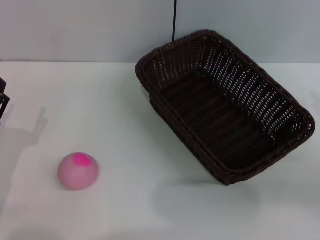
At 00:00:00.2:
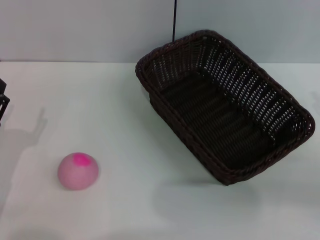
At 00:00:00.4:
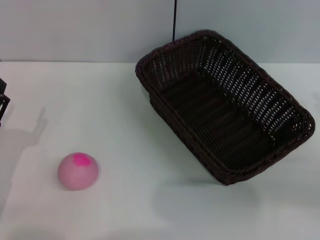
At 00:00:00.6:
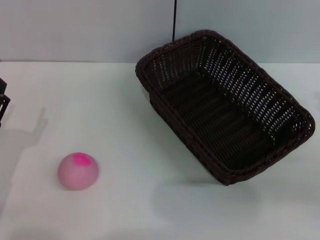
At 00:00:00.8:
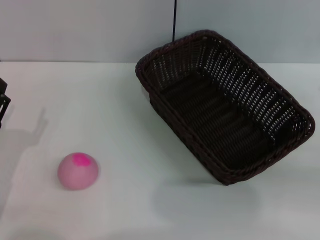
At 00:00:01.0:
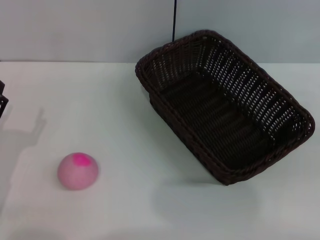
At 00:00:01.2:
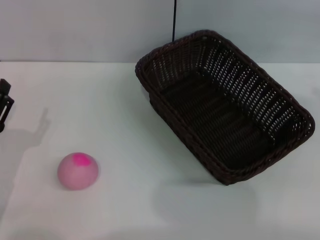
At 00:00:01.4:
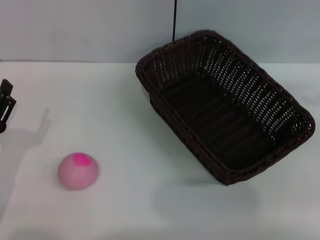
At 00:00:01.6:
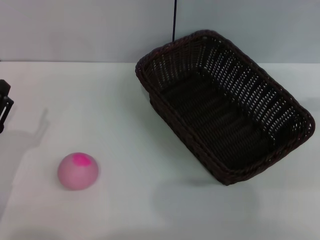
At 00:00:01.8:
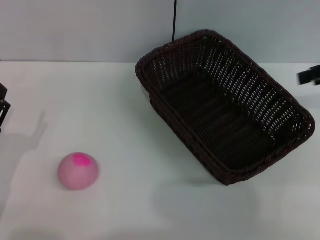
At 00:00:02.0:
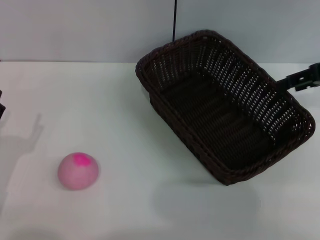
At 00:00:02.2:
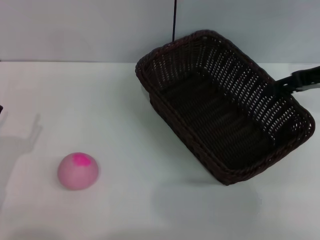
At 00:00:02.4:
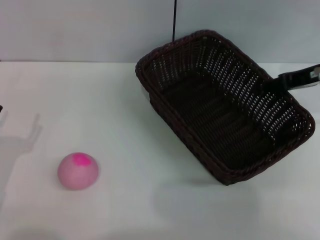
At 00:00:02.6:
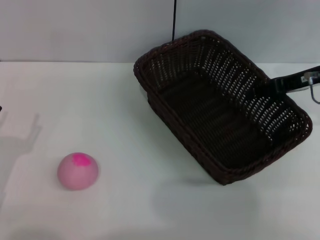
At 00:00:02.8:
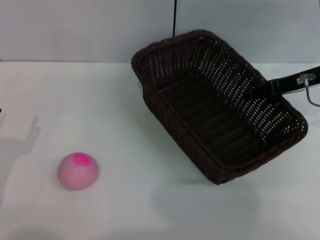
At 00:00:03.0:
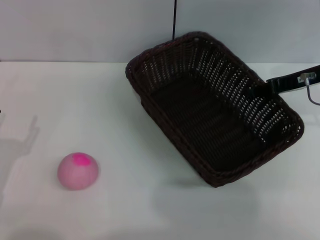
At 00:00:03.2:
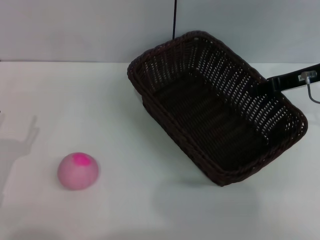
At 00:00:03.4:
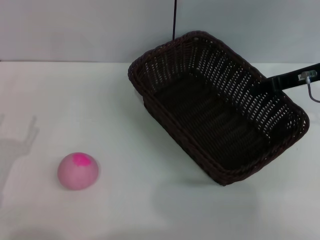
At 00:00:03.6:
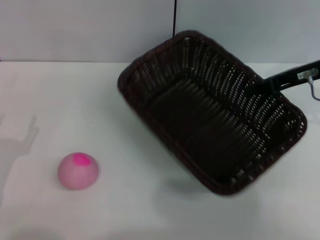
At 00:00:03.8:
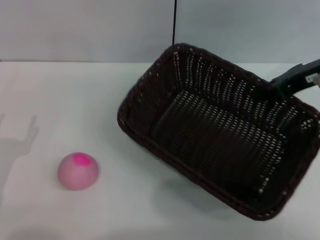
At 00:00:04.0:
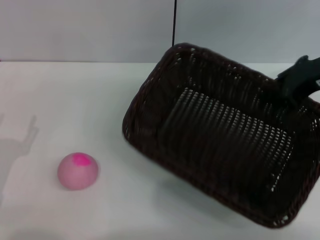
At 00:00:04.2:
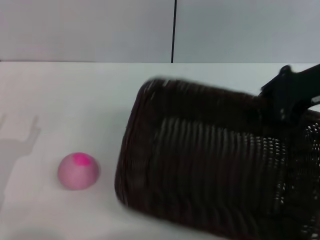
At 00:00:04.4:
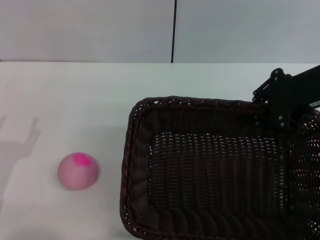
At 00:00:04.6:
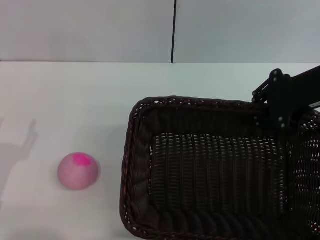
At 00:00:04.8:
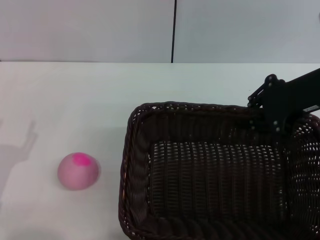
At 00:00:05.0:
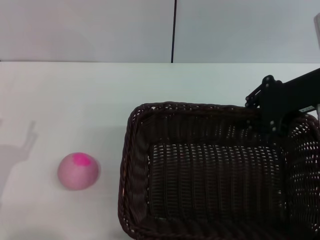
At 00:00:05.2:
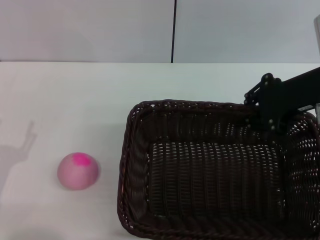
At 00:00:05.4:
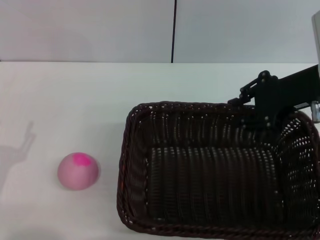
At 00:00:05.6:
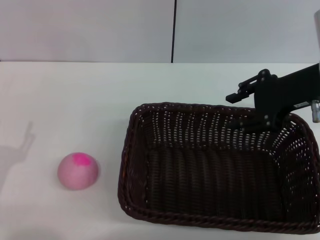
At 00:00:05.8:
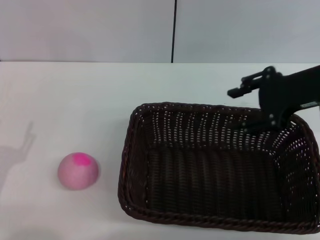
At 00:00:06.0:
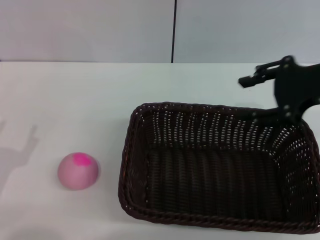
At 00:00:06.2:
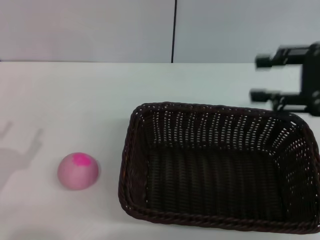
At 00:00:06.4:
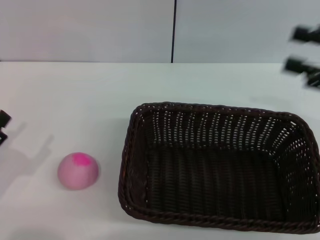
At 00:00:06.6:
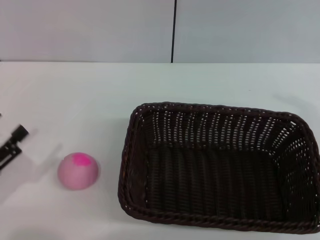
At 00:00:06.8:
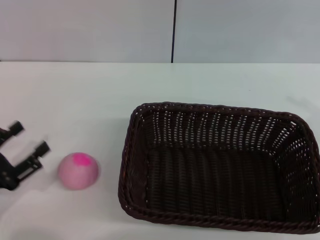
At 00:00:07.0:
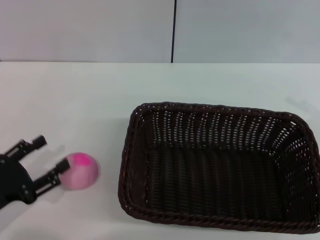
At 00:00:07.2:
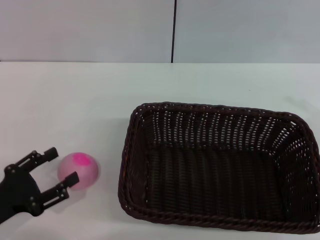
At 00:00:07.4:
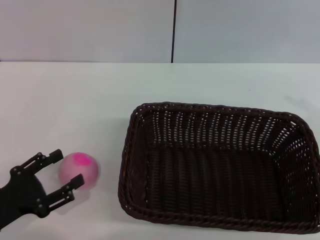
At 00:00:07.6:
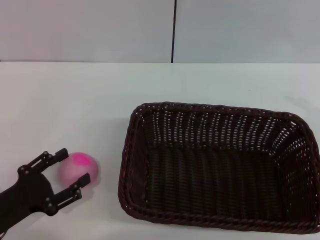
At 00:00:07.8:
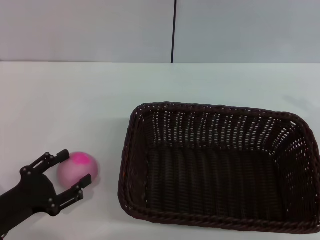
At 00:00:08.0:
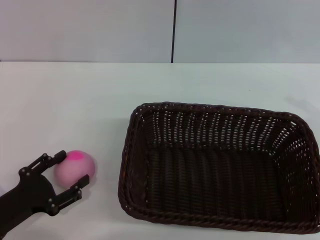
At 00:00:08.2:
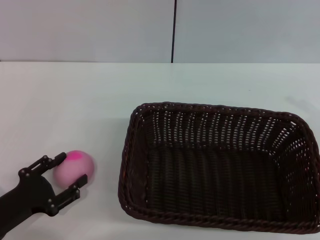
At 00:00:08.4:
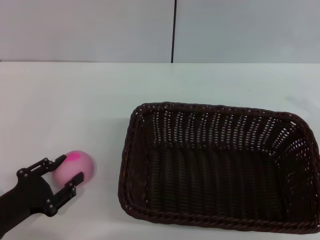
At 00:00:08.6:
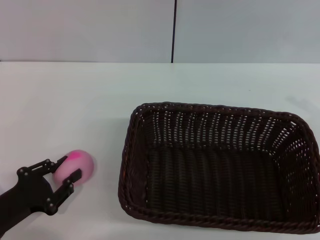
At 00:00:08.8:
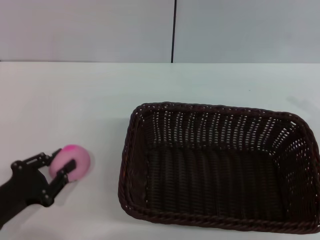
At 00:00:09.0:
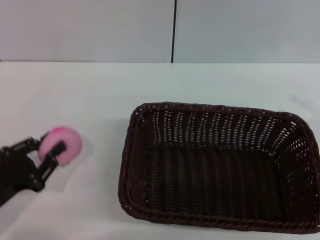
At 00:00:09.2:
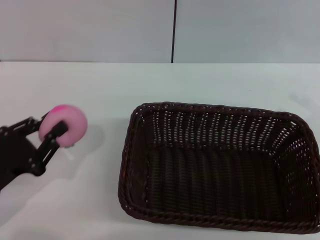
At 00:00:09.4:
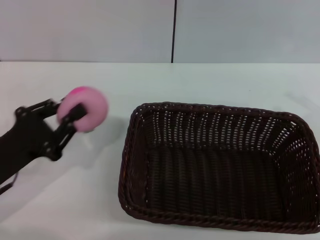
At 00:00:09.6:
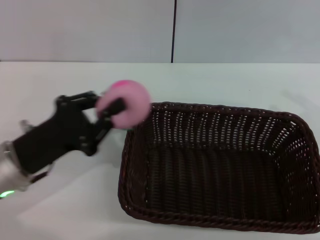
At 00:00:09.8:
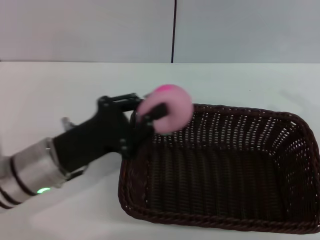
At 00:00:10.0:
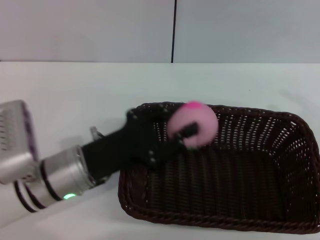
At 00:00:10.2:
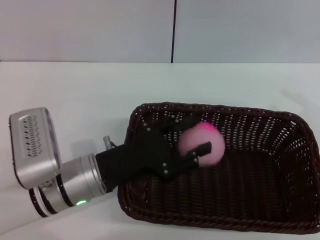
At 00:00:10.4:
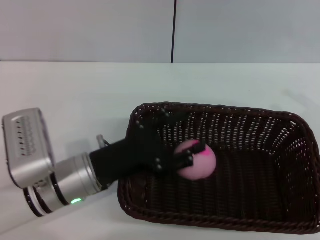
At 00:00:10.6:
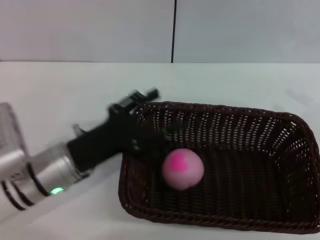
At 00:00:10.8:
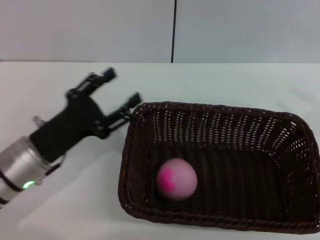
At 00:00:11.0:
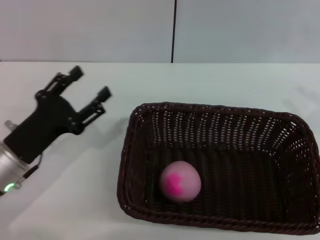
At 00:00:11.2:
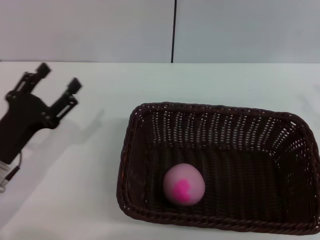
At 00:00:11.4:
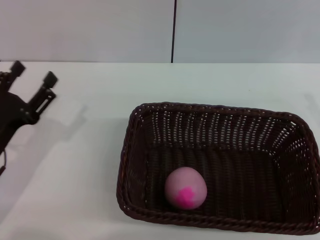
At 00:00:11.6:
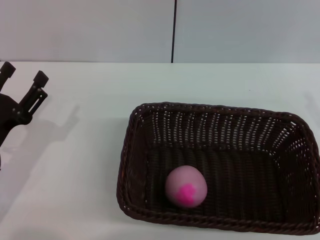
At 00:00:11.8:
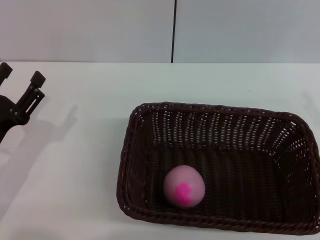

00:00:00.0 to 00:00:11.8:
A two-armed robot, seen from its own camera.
Step, 00:00:00.0 to 00:00:04.0: Pick up the dark basket with the right gripper.
Step, 00:00:04.2 to 00:00:05.8: Place the dark basket in the center of view with the right gripper.
Step, 00:00:06.2 to 00:00:09.2: Pick up the peach with the left gripper.
Step, 00:00:09.4 to 00:00:10.4: Place the peach into the basket with the left gripper.
00:00:00.0 to 00:00:01.4: The right gripper moves upward and forward, approximately 20 cm.
00:00:01.4 to 00:00:03.0: The right gripper heads to the left, downward and forward, covering approximately 20 cm.
00:00:03.0 to 00:00:04.4: The right gripper shifts approximately 10 cm upward and backward, and closes up.
00:00:04.4 to 00:00:06.0: The right gripper opens up.
00:00:06.0 to 00:00:07.4: The right gripper moves downward, to the right and backward, roughly 15 cm.
00:00:07.4 to 00:00:08.8: The left gripper closes up.
00:00:08.8 to 00:00:10.4: The left gripper travels to the right and forward by about 15 cm.
00:00:10.4 to 00:00:11.8: The left gripper travels to the left by about 15 cm, and opens.

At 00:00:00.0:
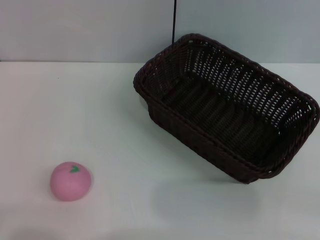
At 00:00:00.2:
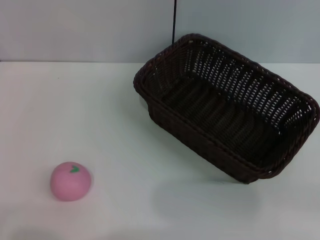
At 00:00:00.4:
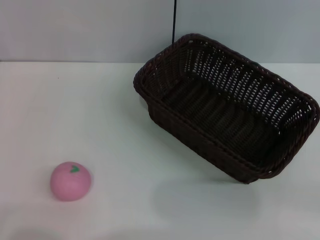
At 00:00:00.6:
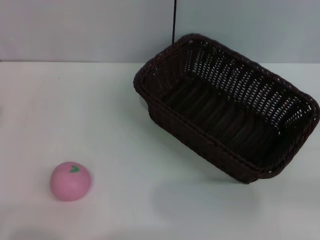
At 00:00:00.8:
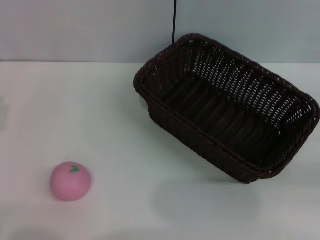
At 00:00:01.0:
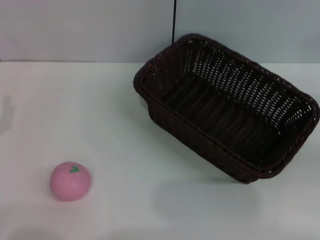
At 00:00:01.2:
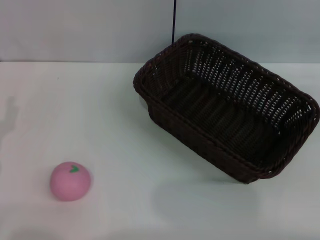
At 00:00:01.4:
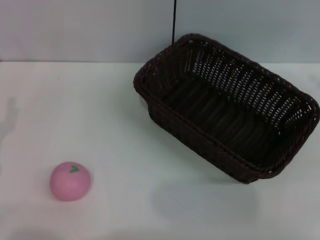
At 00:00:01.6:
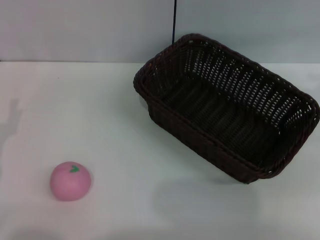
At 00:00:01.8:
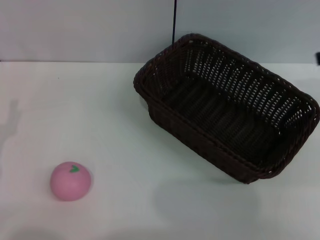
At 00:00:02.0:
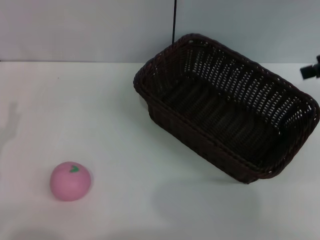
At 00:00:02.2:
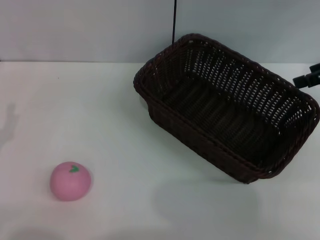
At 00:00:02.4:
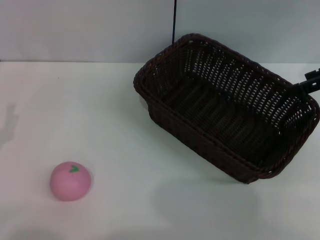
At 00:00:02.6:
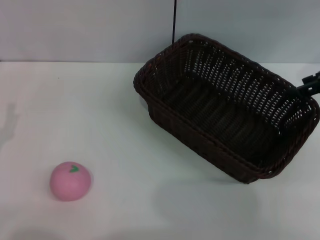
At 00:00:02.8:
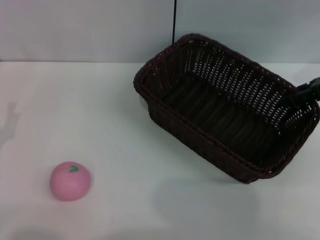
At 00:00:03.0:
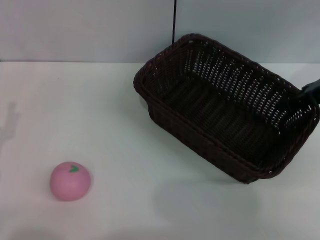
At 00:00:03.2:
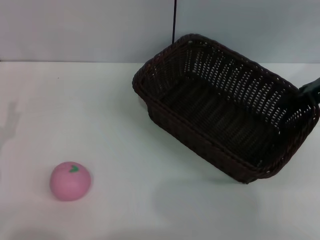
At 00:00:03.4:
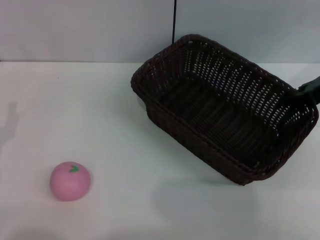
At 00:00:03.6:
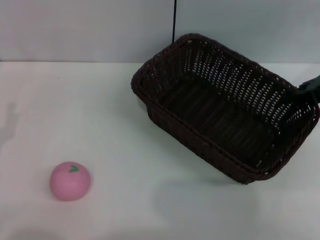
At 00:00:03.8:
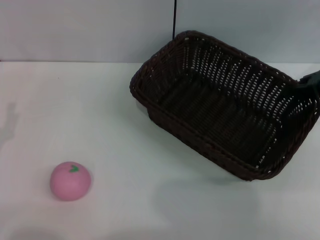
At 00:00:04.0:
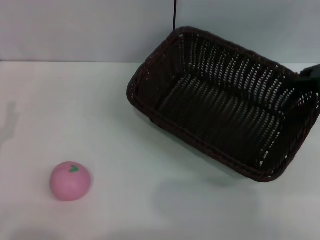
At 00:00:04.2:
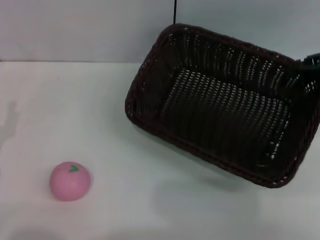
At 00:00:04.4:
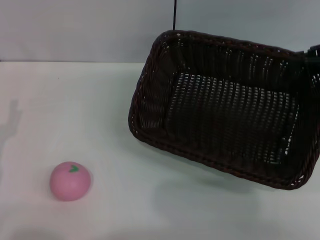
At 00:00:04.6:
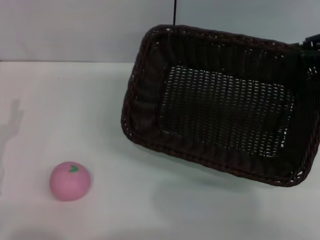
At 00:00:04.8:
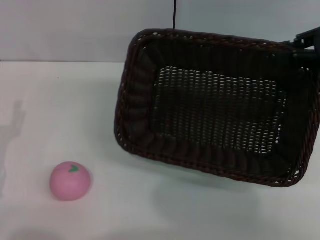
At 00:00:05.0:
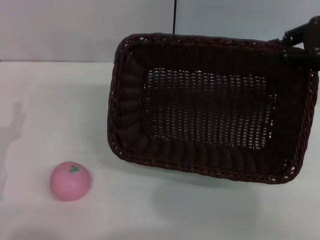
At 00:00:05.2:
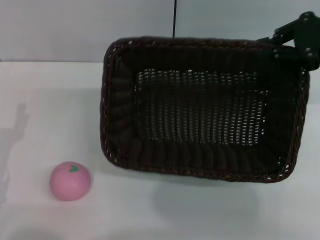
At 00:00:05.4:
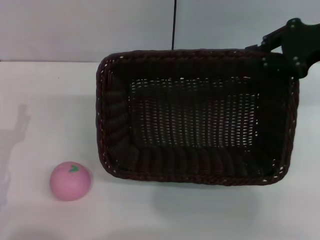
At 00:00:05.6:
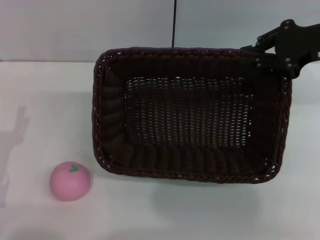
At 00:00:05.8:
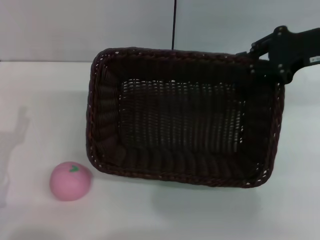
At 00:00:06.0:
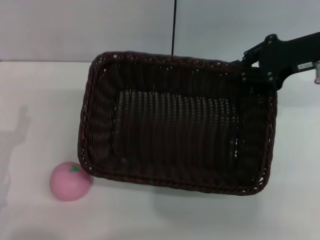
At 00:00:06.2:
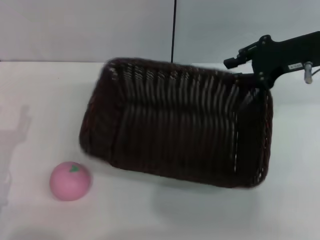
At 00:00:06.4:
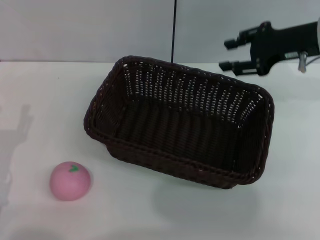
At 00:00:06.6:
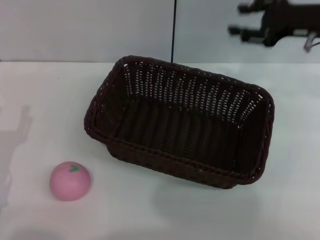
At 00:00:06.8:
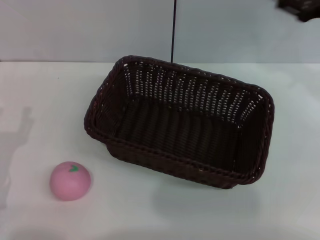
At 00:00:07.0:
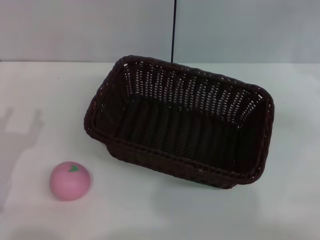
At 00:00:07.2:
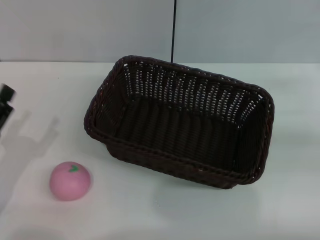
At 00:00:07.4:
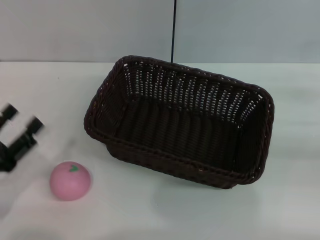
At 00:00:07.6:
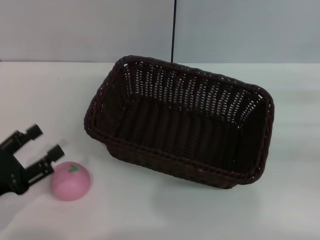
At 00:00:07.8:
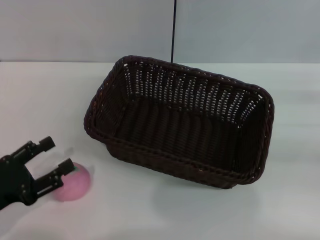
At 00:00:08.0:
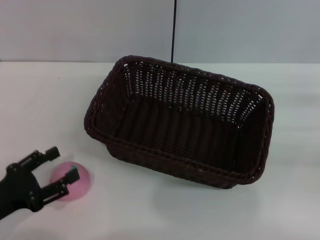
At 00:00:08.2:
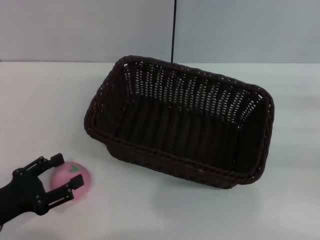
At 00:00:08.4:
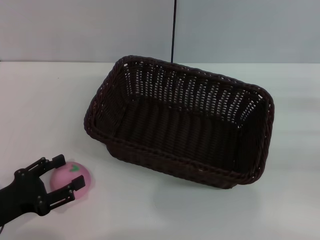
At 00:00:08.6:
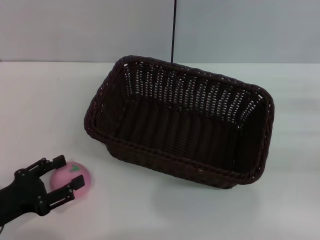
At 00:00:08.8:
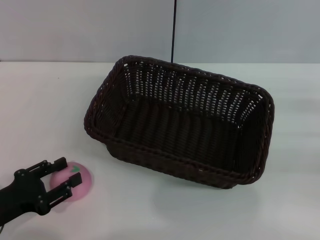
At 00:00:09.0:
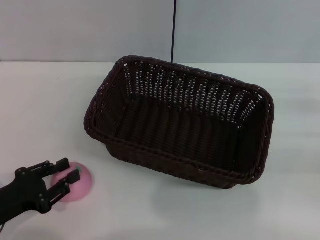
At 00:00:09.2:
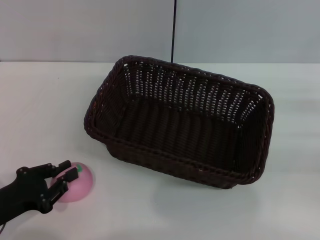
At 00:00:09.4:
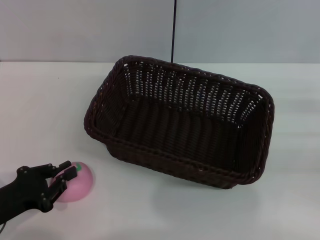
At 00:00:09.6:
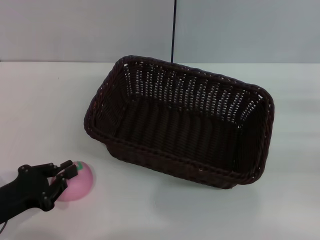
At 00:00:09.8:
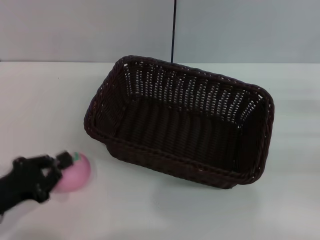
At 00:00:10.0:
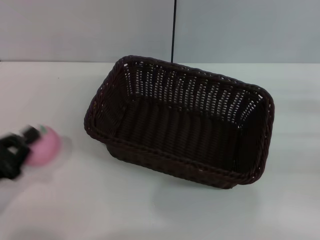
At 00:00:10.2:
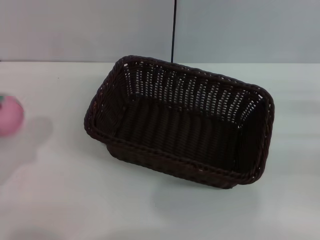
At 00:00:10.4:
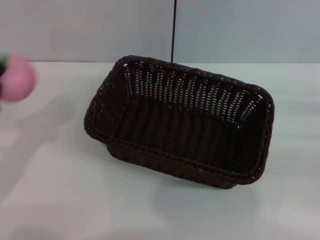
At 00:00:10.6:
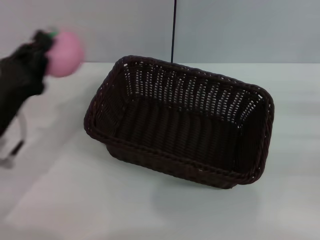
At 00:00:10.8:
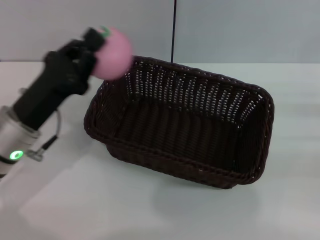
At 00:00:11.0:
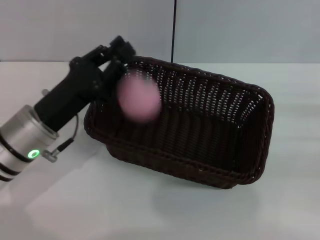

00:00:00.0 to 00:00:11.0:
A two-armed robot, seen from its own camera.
Step, 00:00:00.0 to 00:00:04.0: Pick up the dark basket with the right gripper.
Step, 00:00:04.2 to 00:00:06.2: Place the dark basket in the center of view with the right gripper.
Step, 00:00:06.6 to 00:00:10.0: Pick up the peach with the left gripper.
00:00:00.0 to 00:00:01.6: The right gripper heads upward and forward, covering about 25 cm.
00:00:01.6 to 00:00:03.2: The right gripper shifts approximately 15 cm downward and to the left, and closes.
00:00:03.2 to 00:00:04.8: The right gripper heads upward, covering about 5 cm, and closes its fingers.
00:00:04.8 to 00:00:06.2: The right gripper travels to the left by some 5 cm.
00:00:06.2 to 00:00:07.8: The right gripper goes about 20 cm to the right, backward and downward.
00:00:07.8 to 00:00:09.4: The left gripper closes up.
00:00:09.4 to 00:00:11.0: The left gripper shifts approximately 15 cm to the right, forward and upward.
